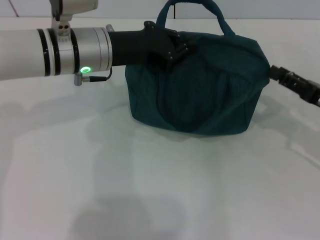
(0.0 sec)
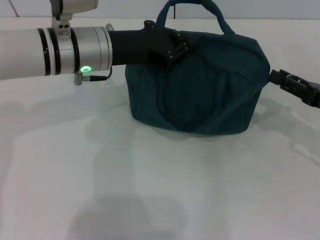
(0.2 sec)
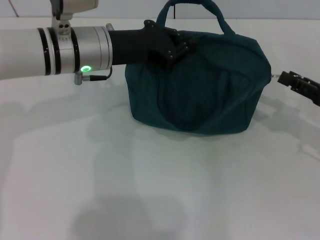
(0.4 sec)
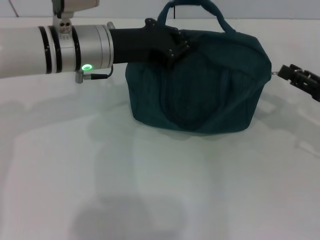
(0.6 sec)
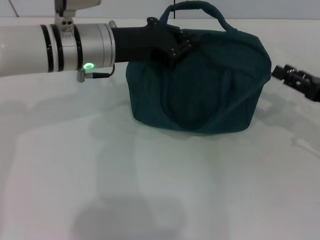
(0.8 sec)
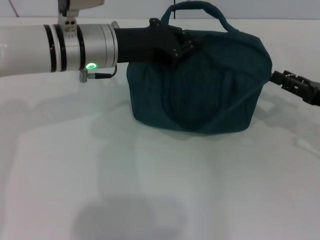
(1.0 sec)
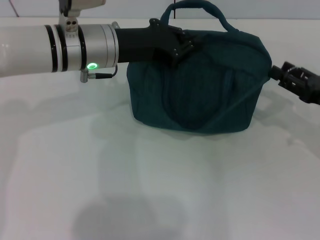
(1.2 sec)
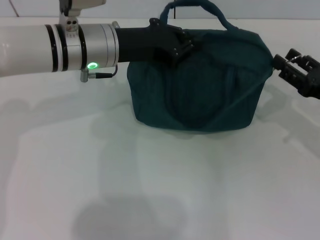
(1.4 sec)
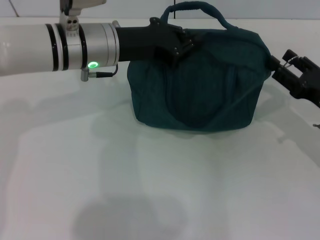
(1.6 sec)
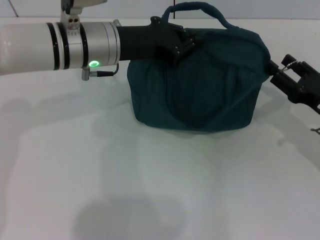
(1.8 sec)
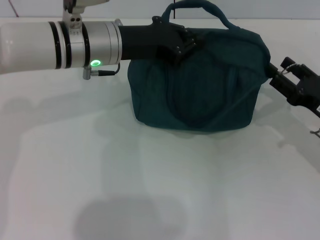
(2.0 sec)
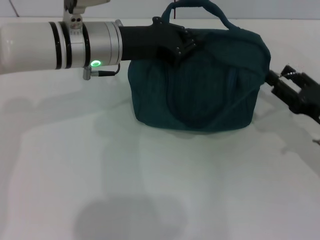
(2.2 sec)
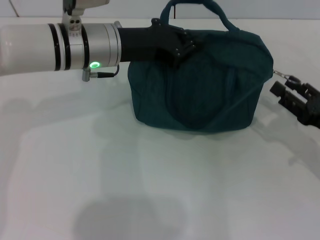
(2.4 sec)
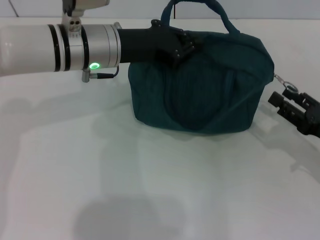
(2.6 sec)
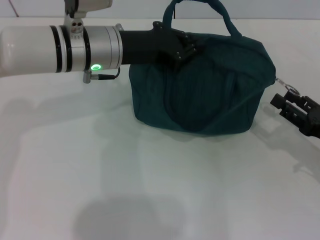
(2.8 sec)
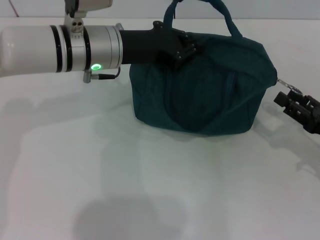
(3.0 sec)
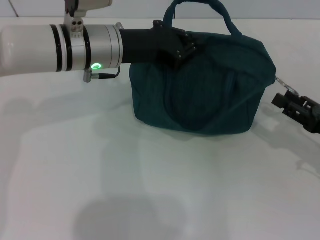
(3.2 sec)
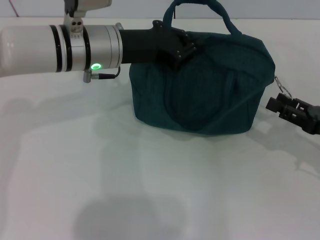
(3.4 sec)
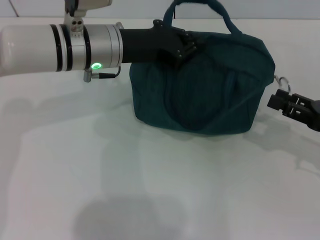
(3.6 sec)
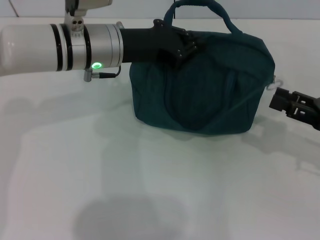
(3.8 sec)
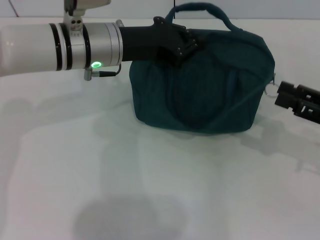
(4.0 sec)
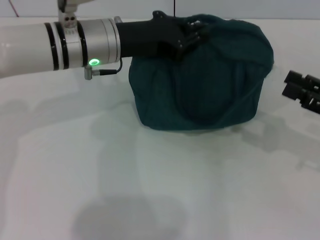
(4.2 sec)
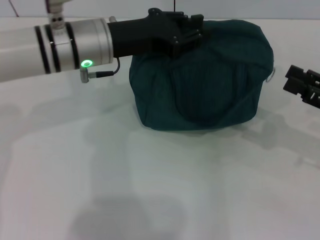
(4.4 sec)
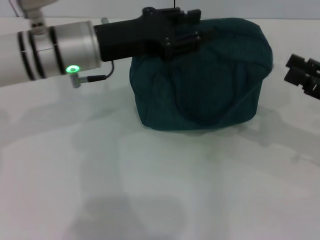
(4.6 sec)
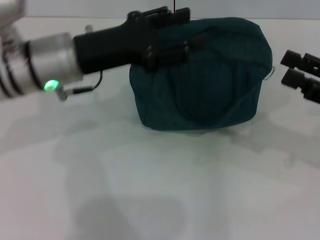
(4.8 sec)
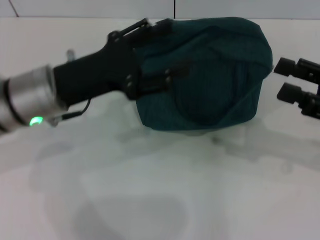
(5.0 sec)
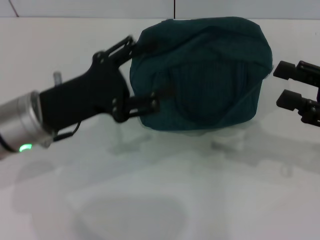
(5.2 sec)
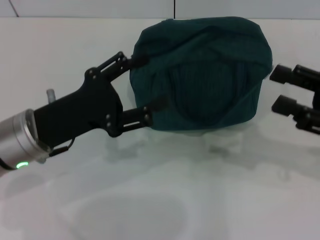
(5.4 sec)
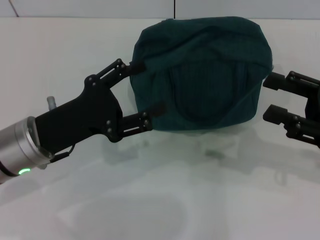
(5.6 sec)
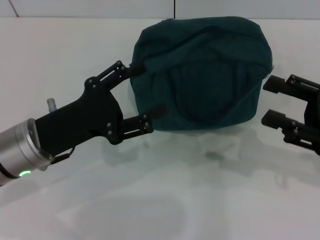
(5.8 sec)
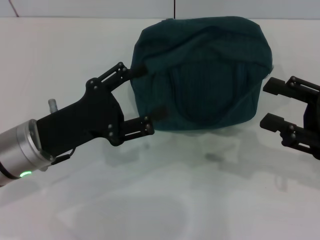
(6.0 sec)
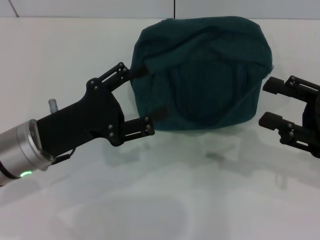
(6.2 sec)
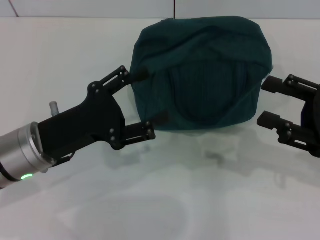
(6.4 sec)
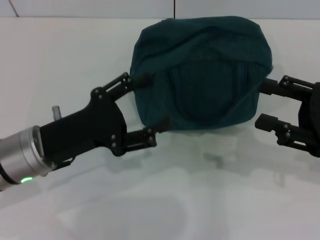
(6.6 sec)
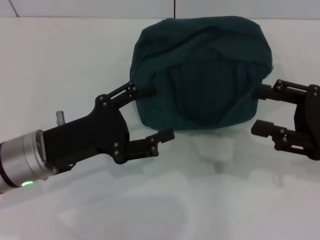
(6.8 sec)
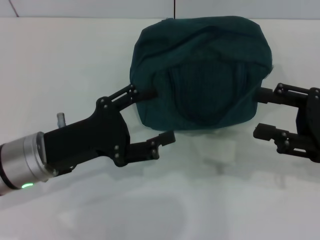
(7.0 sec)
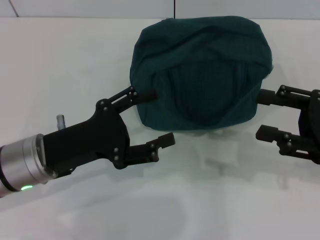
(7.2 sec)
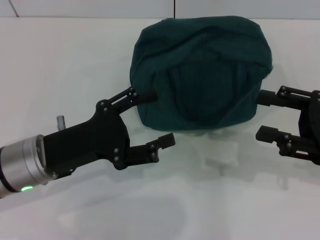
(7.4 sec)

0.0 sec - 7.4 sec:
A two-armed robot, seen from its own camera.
Step, 0.0 sec - 3.6 sec: Zip up the lunch bag with your right hand.
Step, 3.8 sec - 4.8 sec: Hold the lunch bag with your left hand.
1.4 sec - 3.0 sec: The right gripper changes place by roughly 5 cm.
3.0 sec - 4.4 sec: The right gripper shifts roughly 5 cm upward.
4.4 sec - 6.0 sec: The left gripper goes roughly 15 cm backward, to the left and downward, and opens up.
6.0 sec - 7.4 sec: The grippers move only a little.
